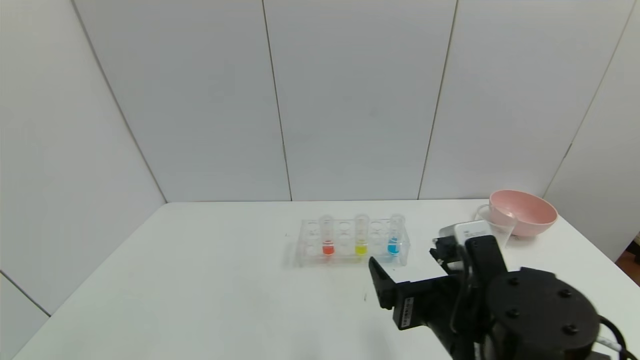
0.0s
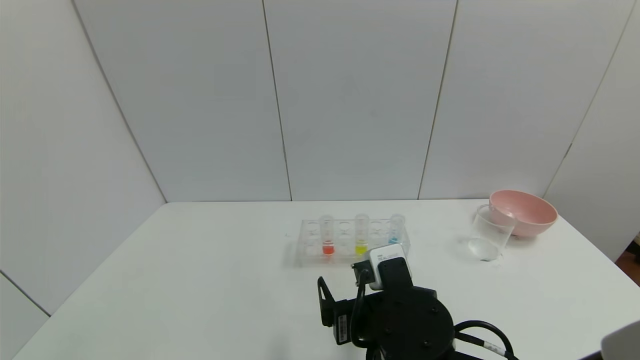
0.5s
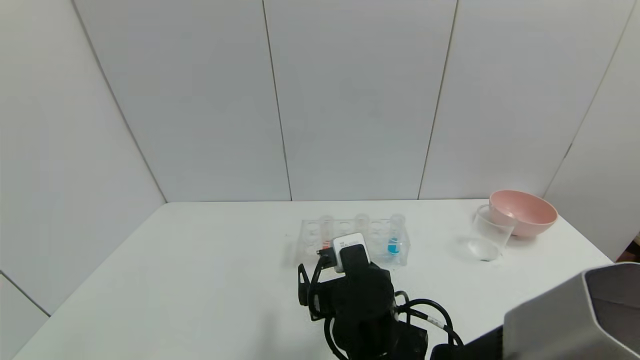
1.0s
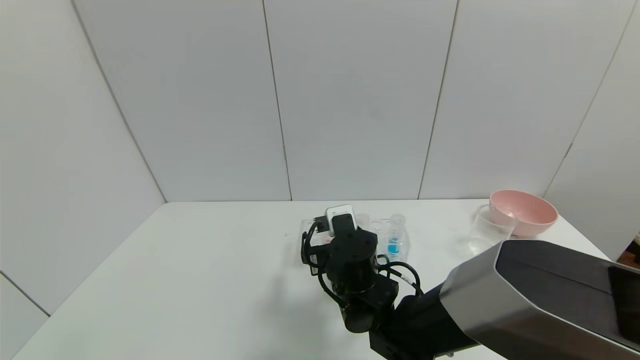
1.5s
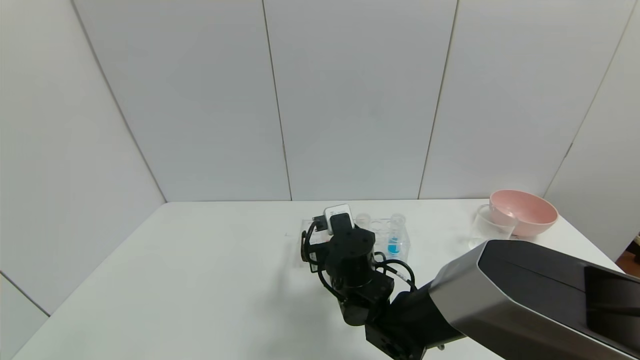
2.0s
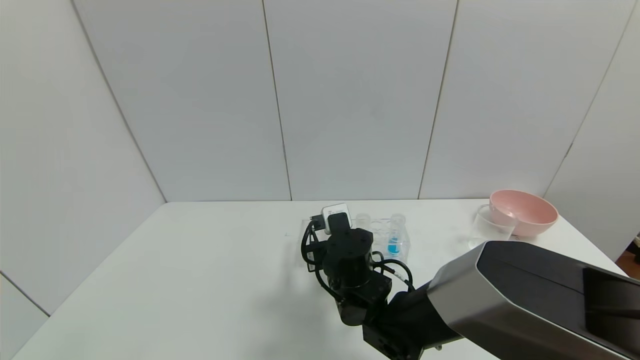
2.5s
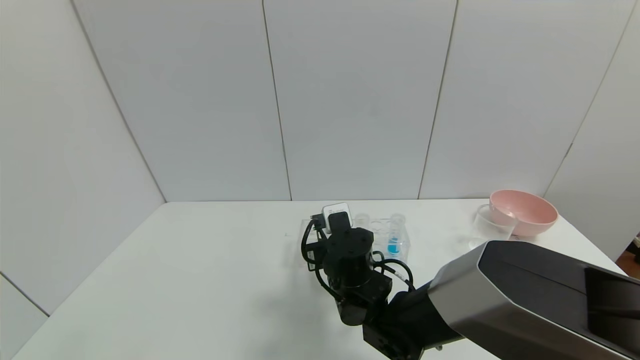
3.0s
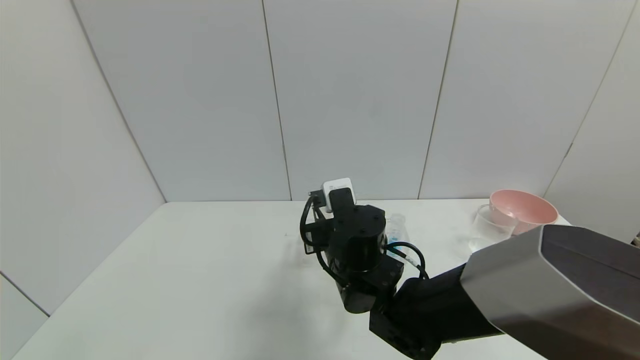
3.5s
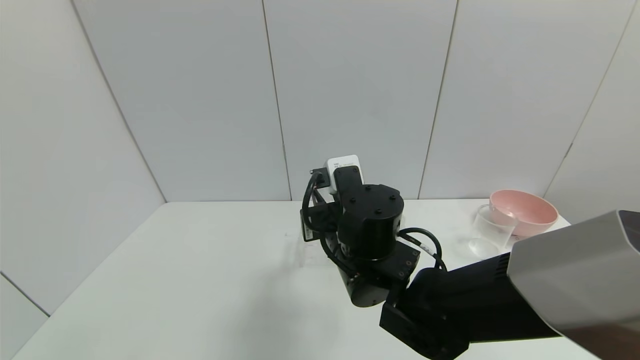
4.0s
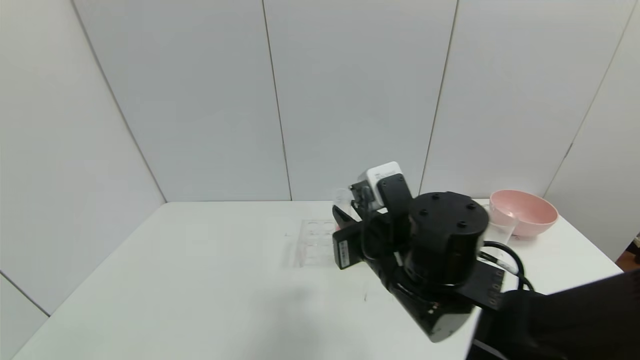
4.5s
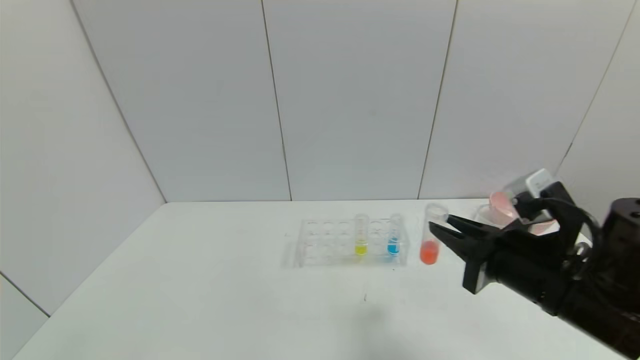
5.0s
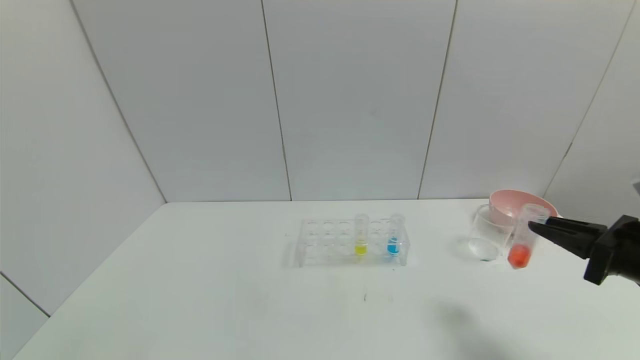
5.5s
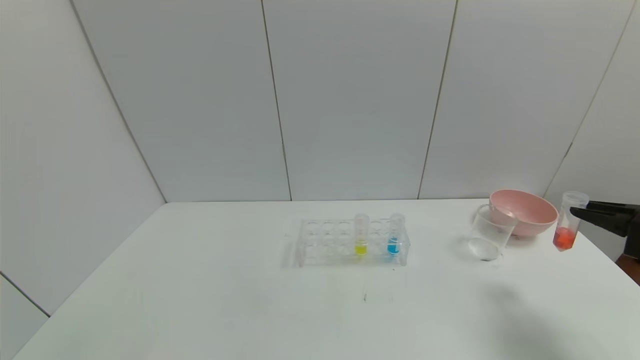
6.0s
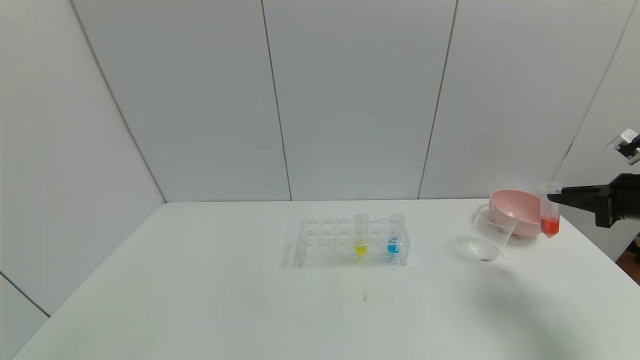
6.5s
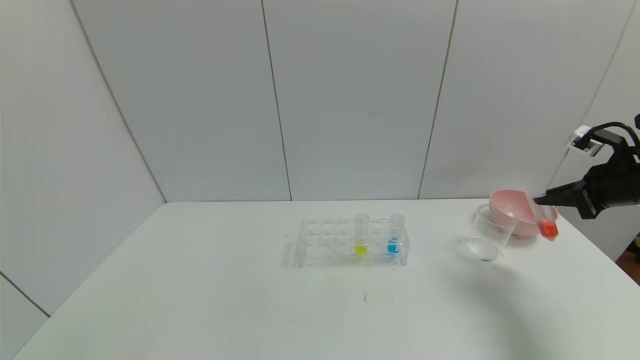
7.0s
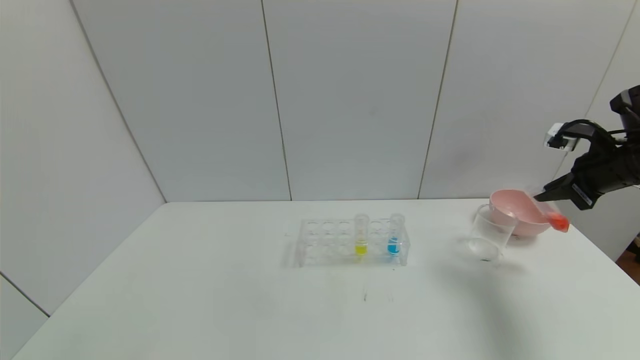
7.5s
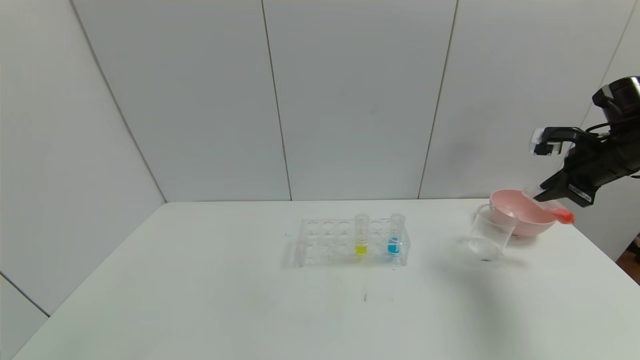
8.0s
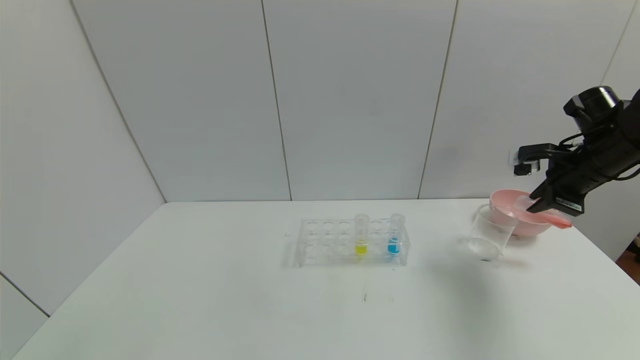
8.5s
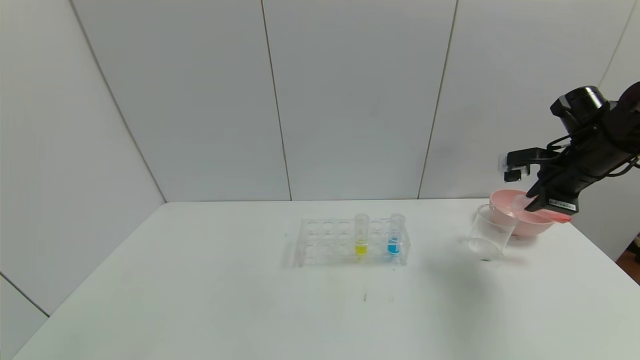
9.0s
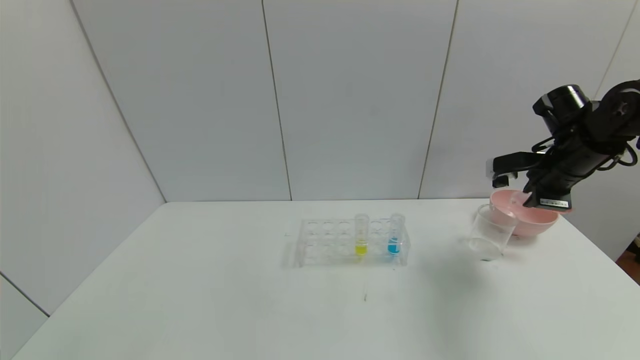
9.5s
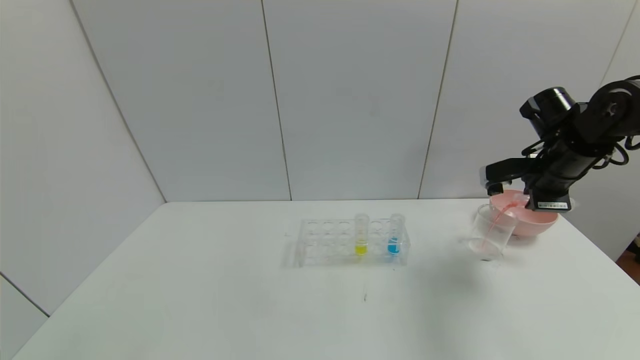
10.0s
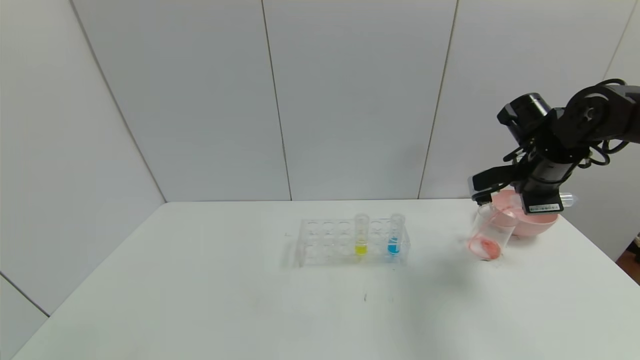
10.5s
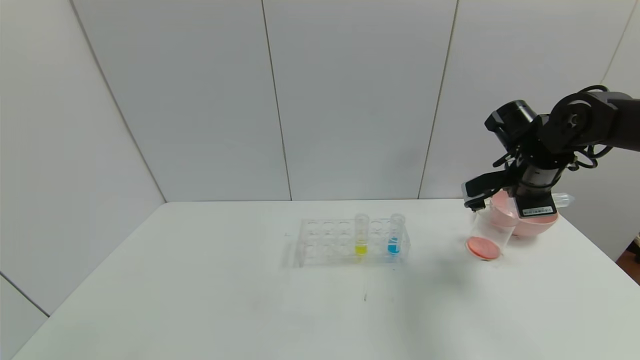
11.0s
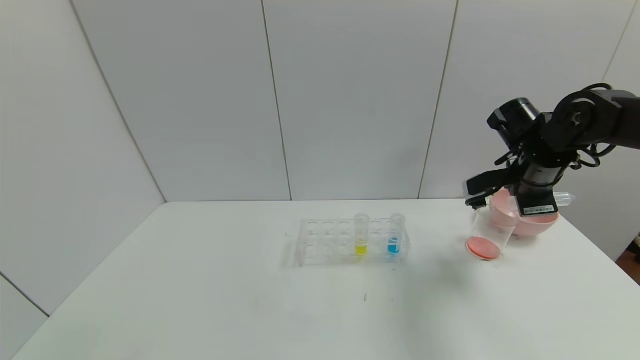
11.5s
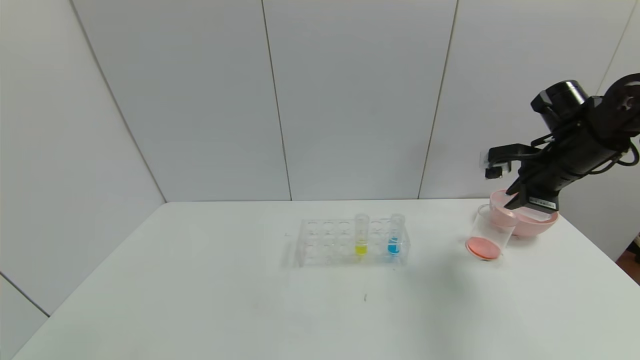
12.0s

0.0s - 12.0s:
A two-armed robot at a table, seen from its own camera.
Task of the whole recording: pick up the test tube with red pigment and the test tube with blue pigment by grippers and pour them into the container.
Step, 0.0s - 5.0s: Pick up the test tube containing the red reagent with right gripper.
0.0s - 2.0s: The right gripper shifts about 20 cm forward, to the left and downward.
2.0s - 4.0s: The right gripper travels upward by roughly 10 cm, and closes up.
4.0s - 6.0s: The right gripper goes approximately 40 cm to the right.
6.0s - 8.0s: The right gripper goes roughly 15 cm forward and upward.
8.0s - 10.0s: The right gripper shifts about 10 cm to the left.

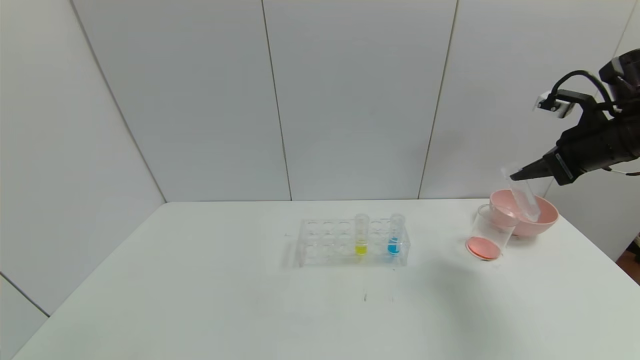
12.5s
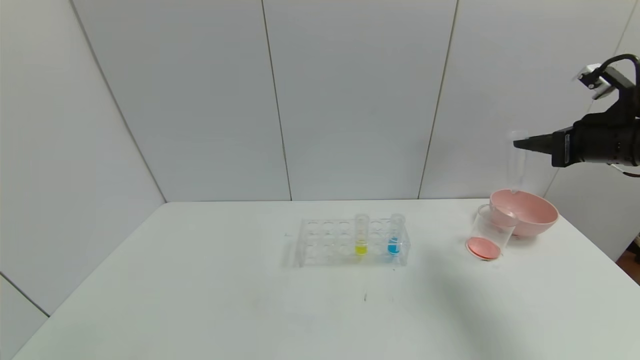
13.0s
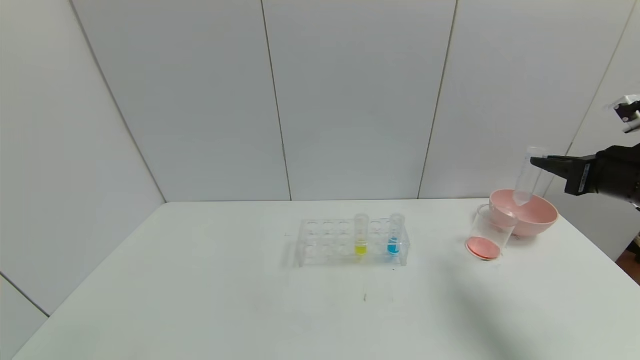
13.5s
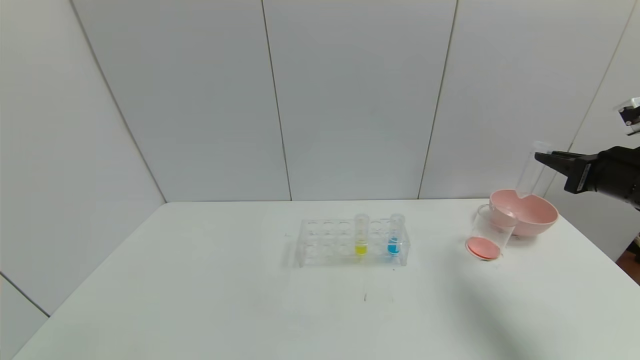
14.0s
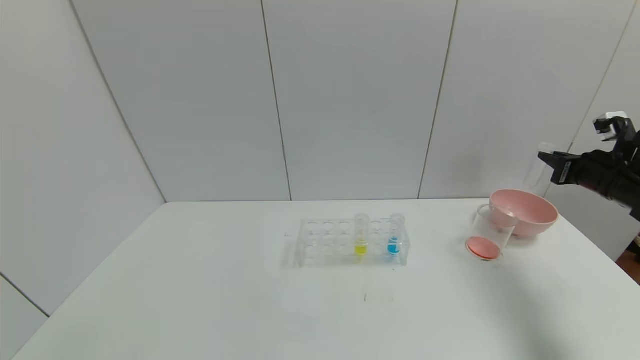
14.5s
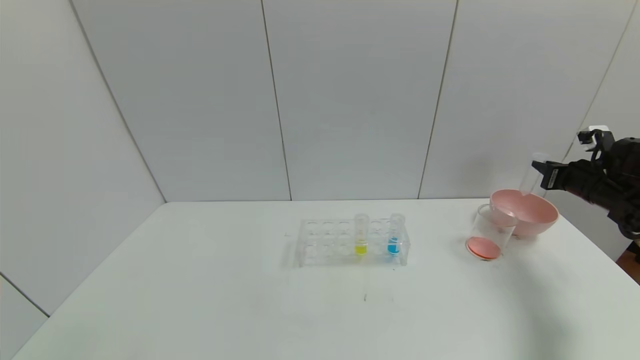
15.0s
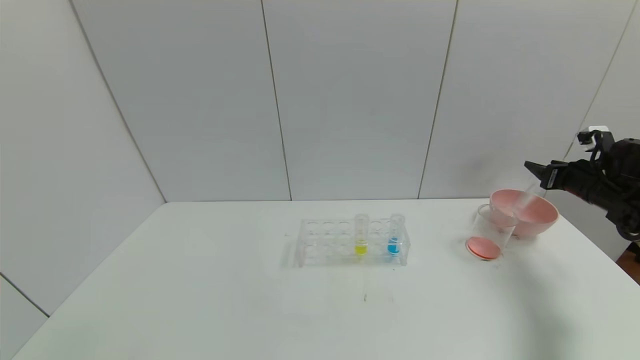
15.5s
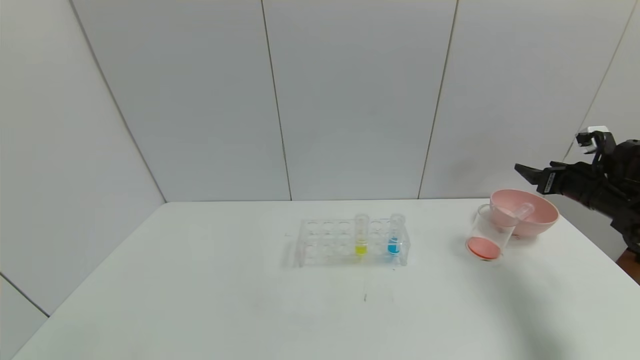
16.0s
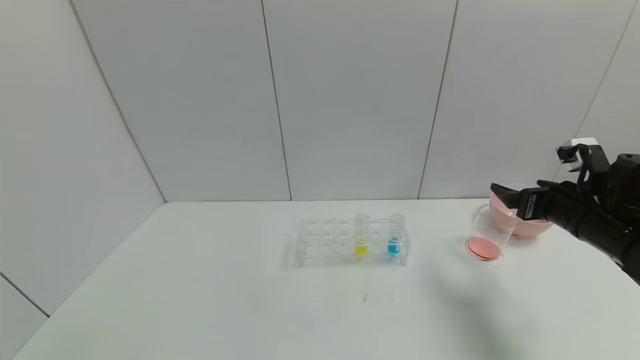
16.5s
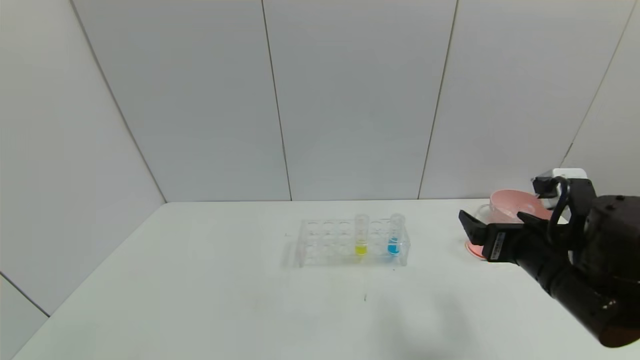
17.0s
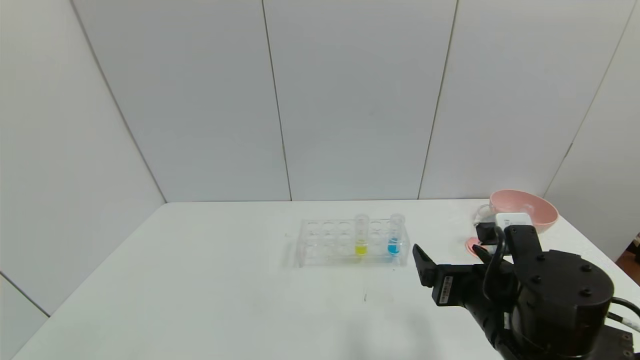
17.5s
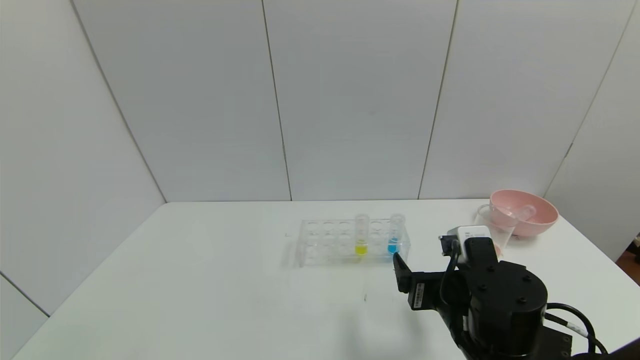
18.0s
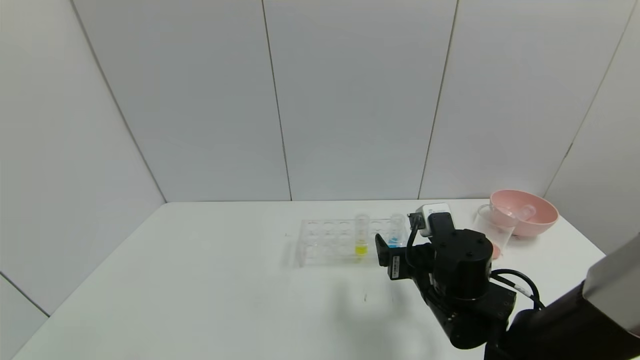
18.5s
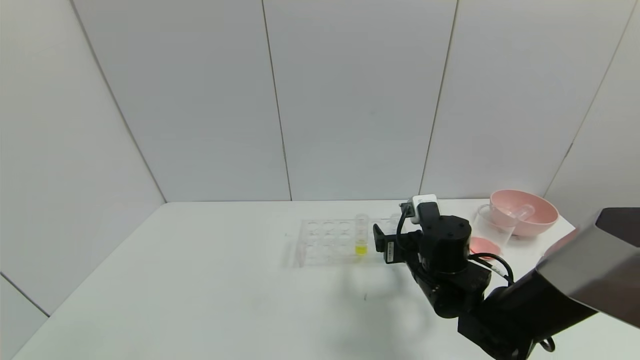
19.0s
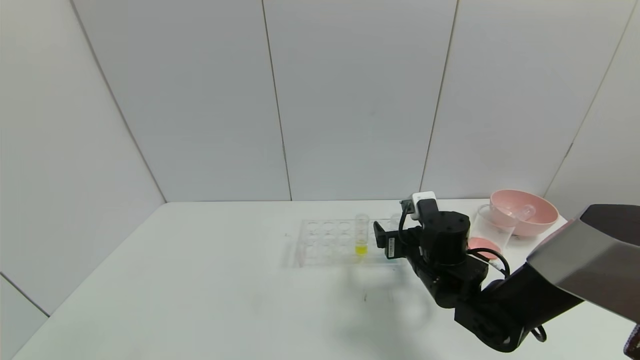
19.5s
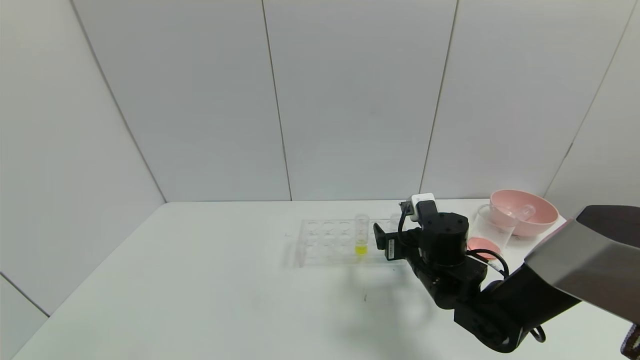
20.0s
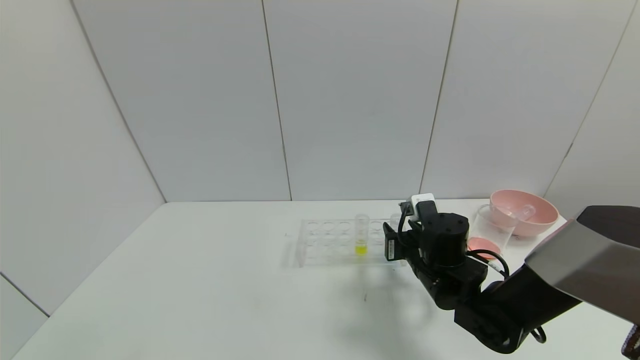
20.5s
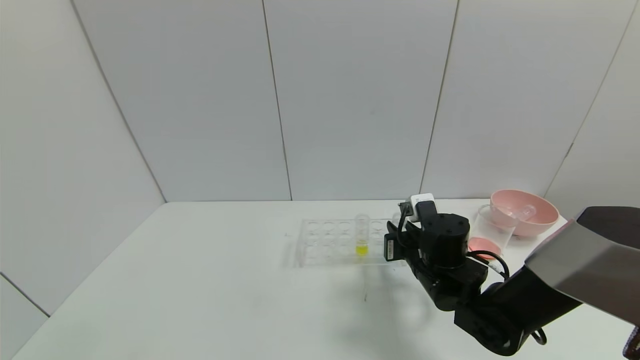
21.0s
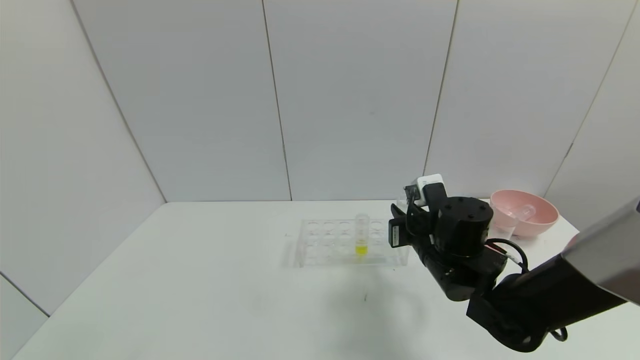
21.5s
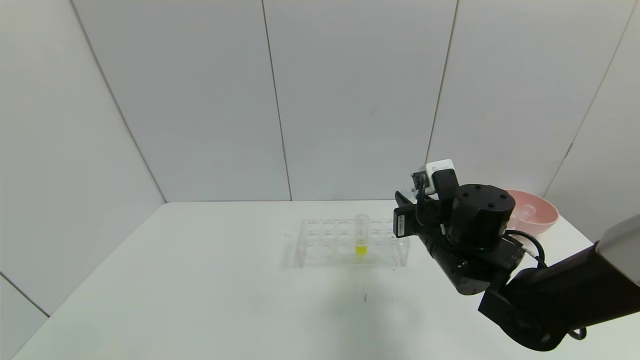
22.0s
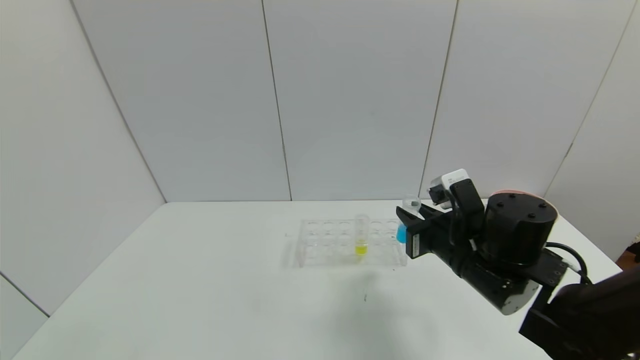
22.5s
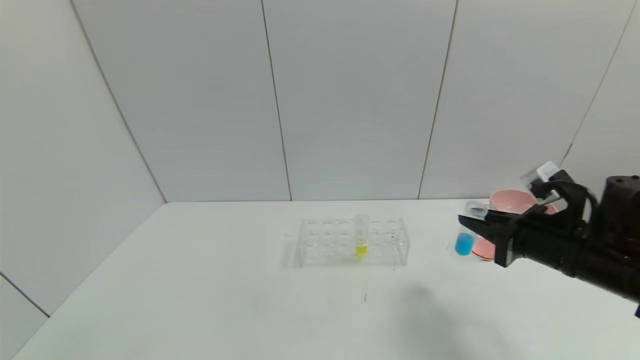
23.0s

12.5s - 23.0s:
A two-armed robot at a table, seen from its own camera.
Task of the whole recording: pick up the test tube with red pigment and the test tube with blue pigment by grippers and pour them into the container.
Step, 13.5s - 17.0s: Place the test tube into the bowl with right gripper.
Step, 17.5s - 22.5s: Pick up the test tube containing the blue reagent with right gripper.
12.5s - 14.5s: The right gripper heads downward and to the right, covering approximately 15 cm.
14.5s - 16.5s: The right gripper goes roughly 15 cm to the left and backward, and opens its fingers.
16.5s - 19.0s: The right gripper goes some 20 cm to the left and downward.
19.0s - 21.0s: The right gripper closes its fingers.
21.0s - 23.0s: The right gripper moves to the right, upward and backward, roughly 20 cm.
